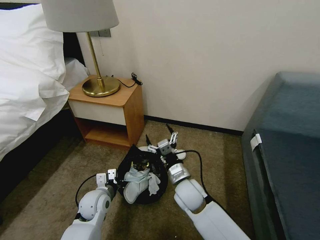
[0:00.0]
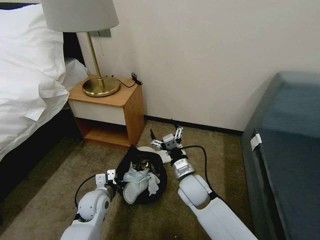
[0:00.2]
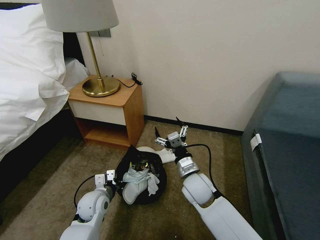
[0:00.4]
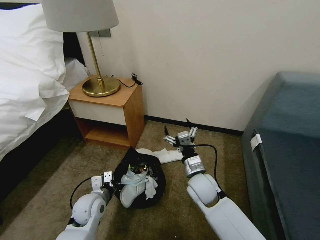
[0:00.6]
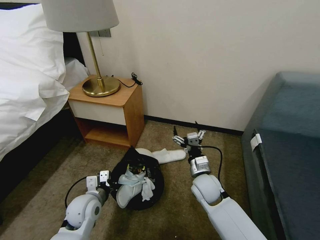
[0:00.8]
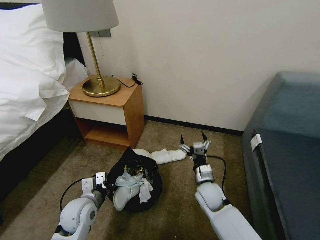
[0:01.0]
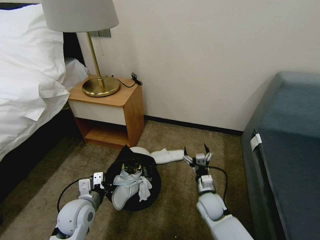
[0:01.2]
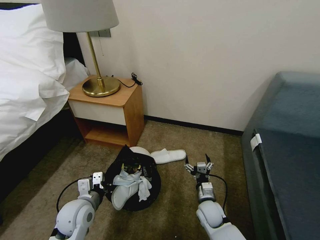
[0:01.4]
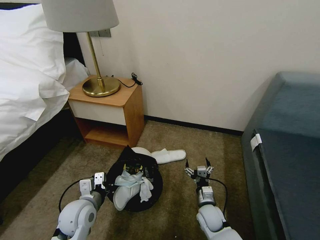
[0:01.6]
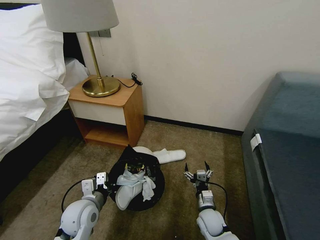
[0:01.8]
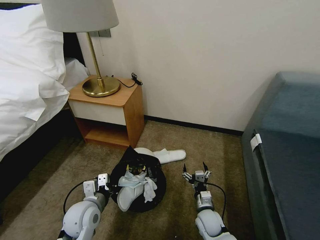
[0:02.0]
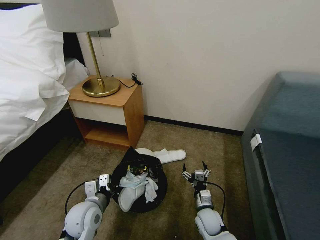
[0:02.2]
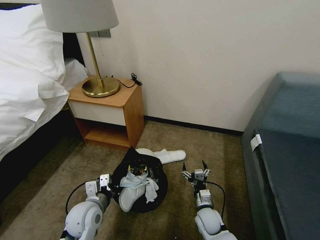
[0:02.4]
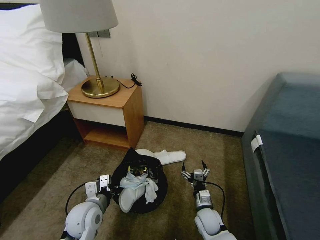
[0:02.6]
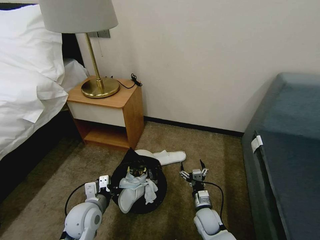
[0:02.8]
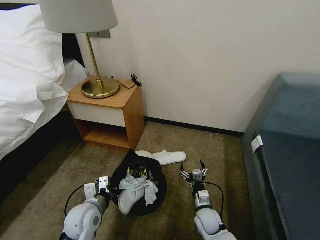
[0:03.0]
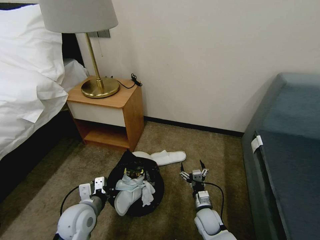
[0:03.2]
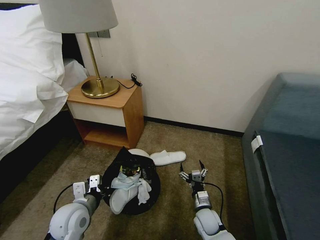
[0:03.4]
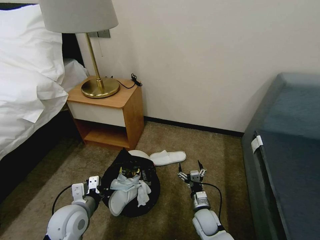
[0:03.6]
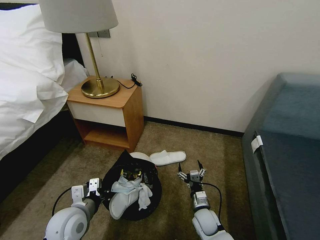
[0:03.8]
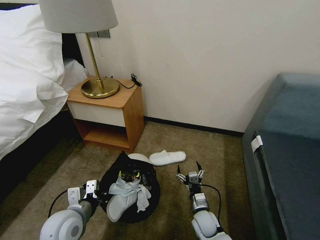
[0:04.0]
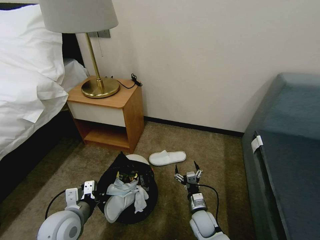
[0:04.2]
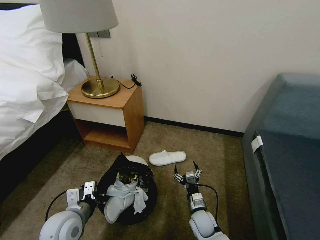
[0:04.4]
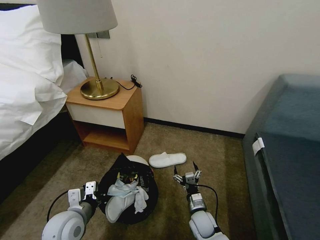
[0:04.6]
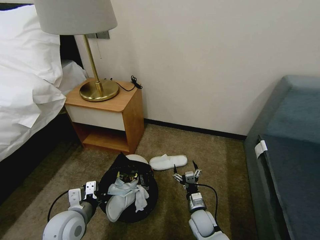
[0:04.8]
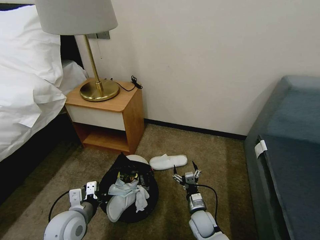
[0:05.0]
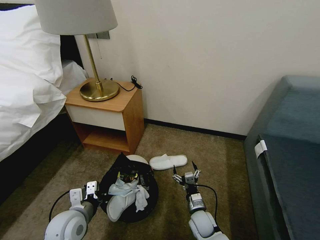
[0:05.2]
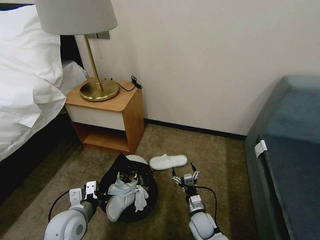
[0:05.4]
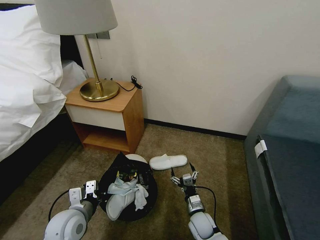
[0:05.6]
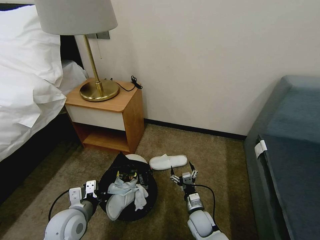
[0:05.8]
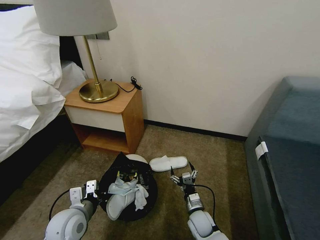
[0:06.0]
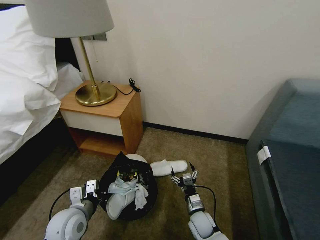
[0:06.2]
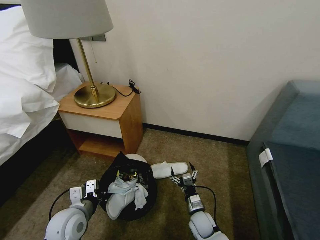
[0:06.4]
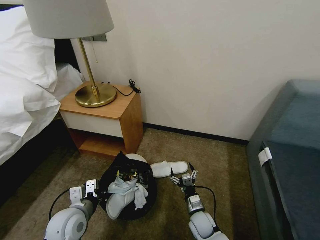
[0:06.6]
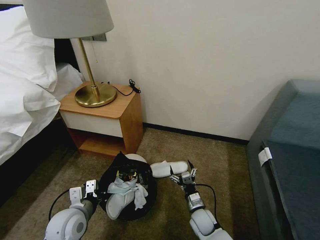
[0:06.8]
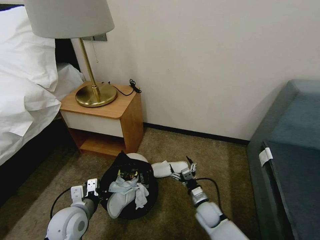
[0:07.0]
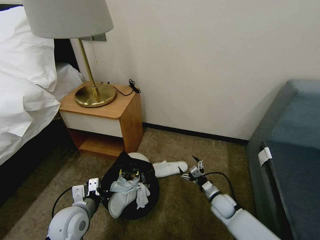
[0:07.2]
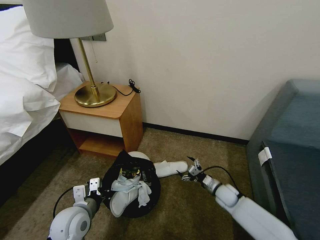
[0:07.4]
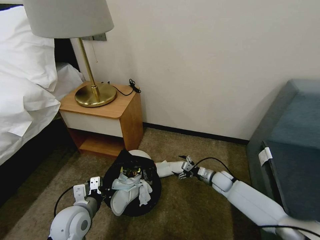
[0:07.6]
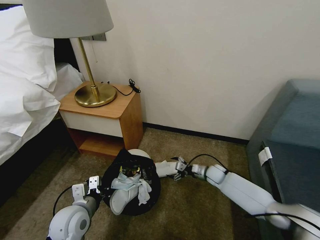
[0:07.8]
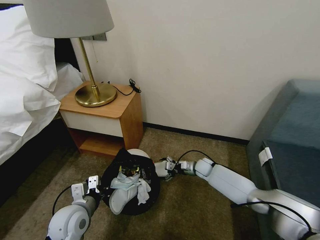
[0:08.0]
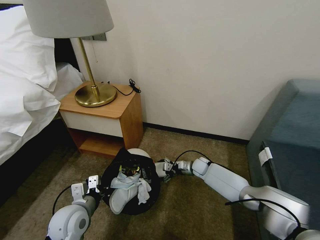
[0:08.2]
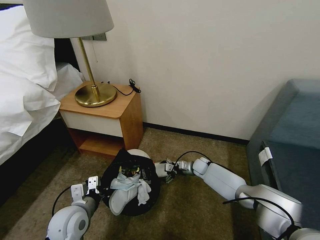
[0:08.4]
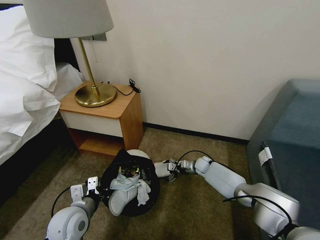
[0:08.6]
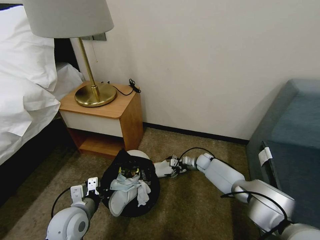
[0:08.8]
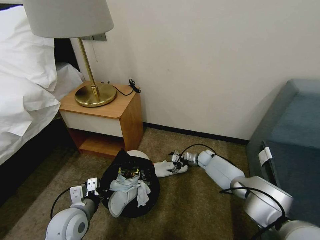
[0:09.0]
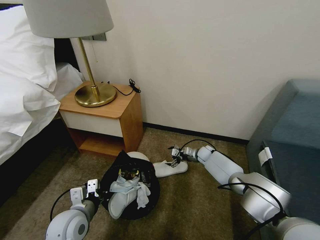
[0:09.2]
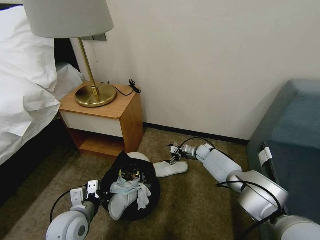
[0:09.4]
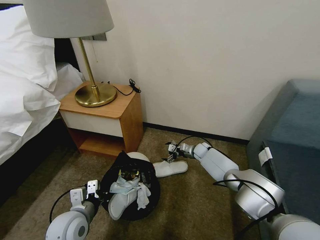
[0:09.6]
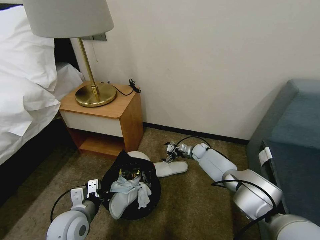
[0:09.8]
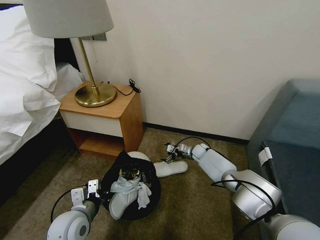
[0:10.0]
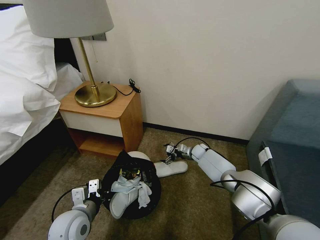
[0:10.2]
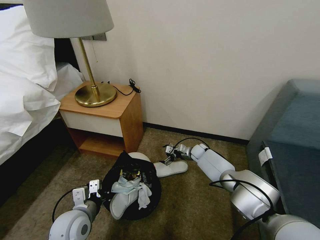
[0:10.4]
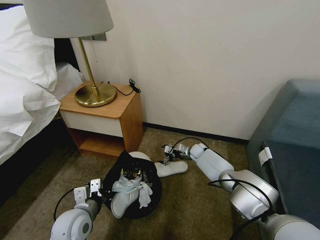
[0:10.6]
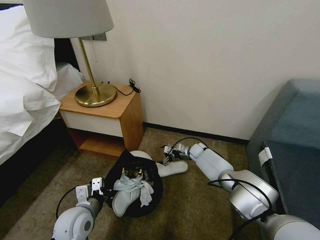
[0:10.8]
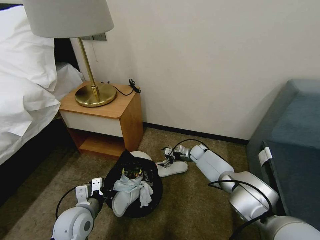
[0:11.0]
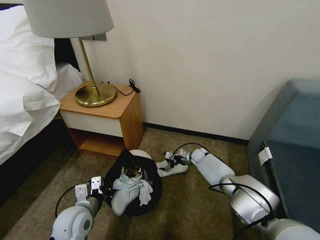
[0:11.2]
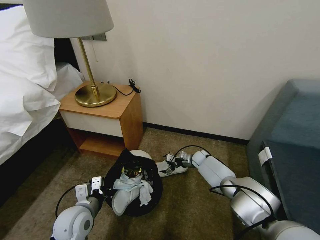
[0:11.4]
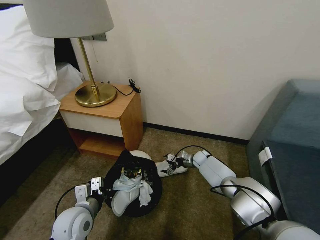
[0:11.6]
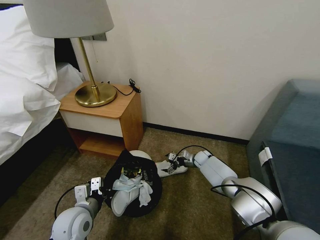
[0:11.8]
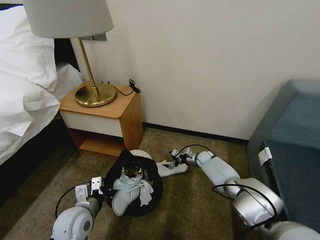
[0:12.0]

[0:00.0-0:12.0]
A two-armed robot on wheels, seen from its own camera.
Task of the whole recording: Pick up the trash bin, then pick up the garbage on the floor and place it into the trash bin.
0:00.0 to 0:01.6: The left gripper moves backward, some 5 cm, while the right gripper goes about 20 cm downward and to the right.
0:01.6 to 0:03.0: The grippers move only a little.
0:03.0 to 0:04.4: The left gripper shifts by about 5 cm.
0:04.4 to 0:06.0: The grippers make only small movements.
0:06.0 to 0:07.6: The right gripper is displaced forward and to the right by about 20 cm.
0:07.6 to 0:09.0: The right gripper is displaced forward by roughly 15 cm.
0:09.0 to 0:10.4: There are only small adjustments of the grippers.
0:10.4 to 0:12.0: The grippers stay close to where they were, moving slightly.

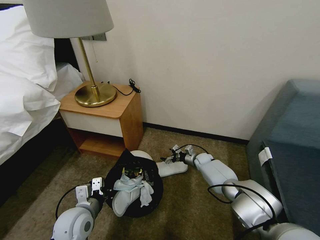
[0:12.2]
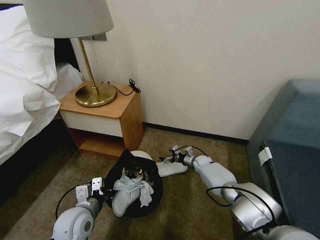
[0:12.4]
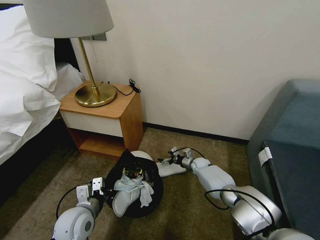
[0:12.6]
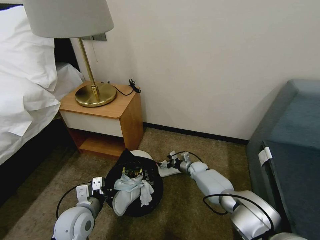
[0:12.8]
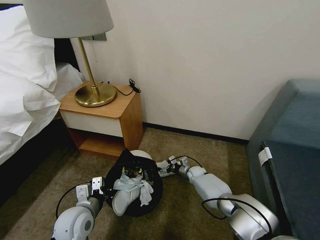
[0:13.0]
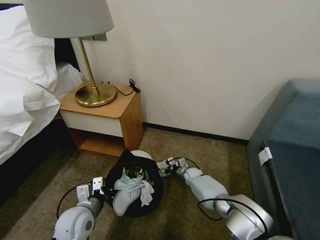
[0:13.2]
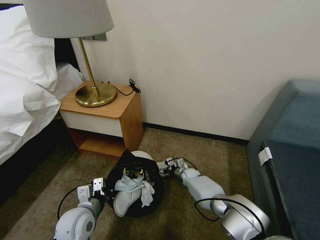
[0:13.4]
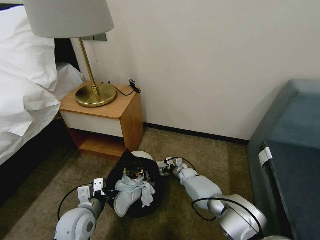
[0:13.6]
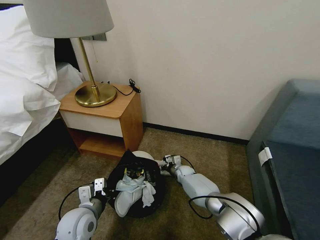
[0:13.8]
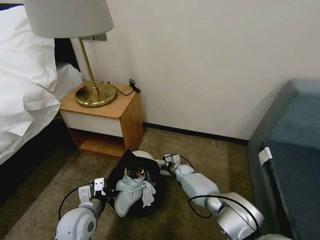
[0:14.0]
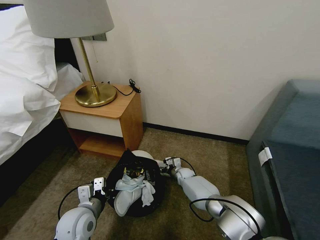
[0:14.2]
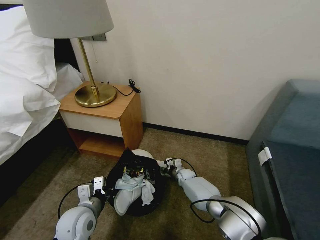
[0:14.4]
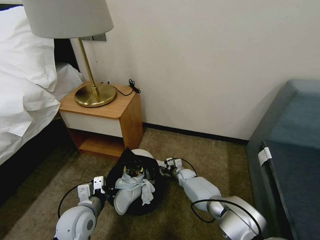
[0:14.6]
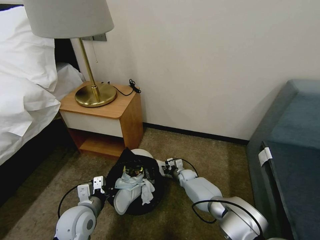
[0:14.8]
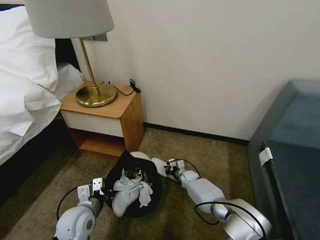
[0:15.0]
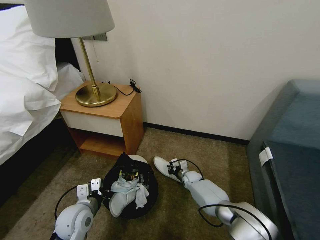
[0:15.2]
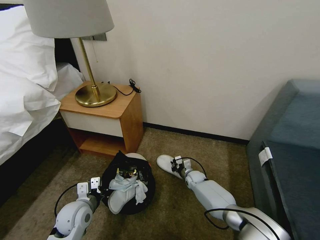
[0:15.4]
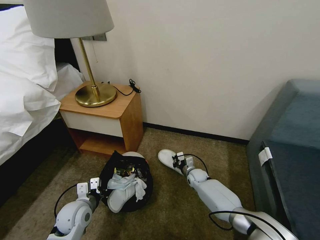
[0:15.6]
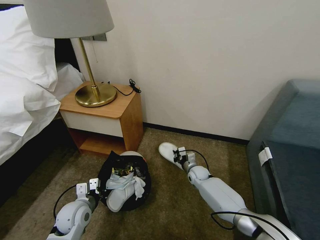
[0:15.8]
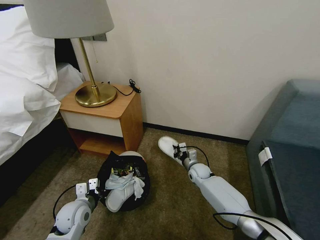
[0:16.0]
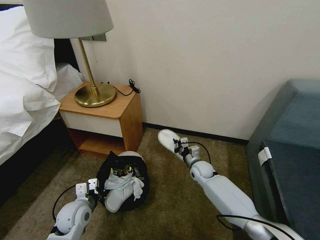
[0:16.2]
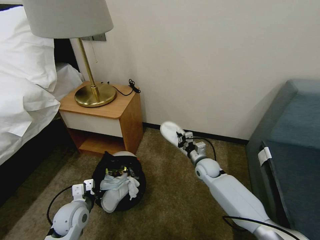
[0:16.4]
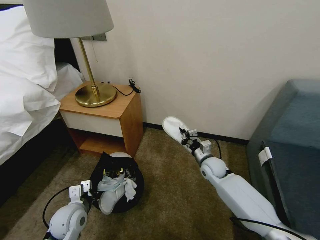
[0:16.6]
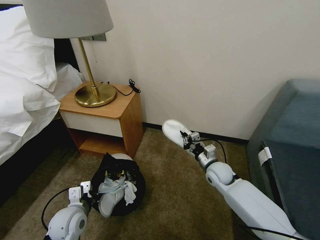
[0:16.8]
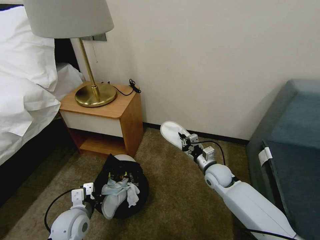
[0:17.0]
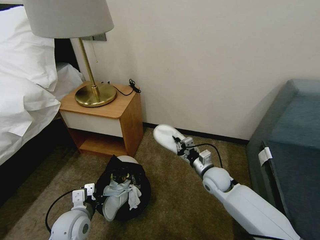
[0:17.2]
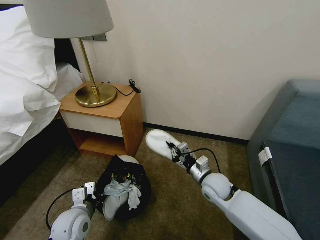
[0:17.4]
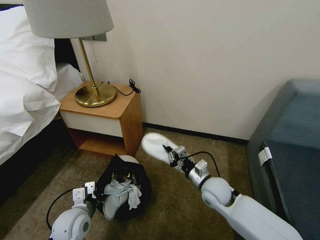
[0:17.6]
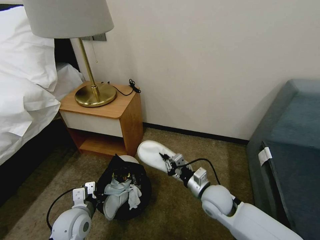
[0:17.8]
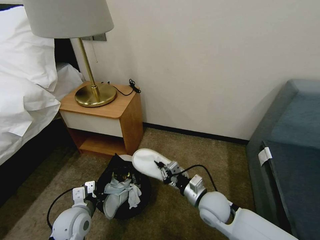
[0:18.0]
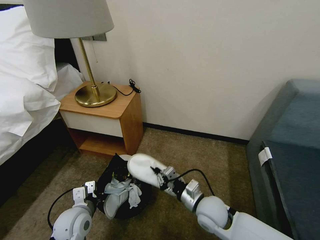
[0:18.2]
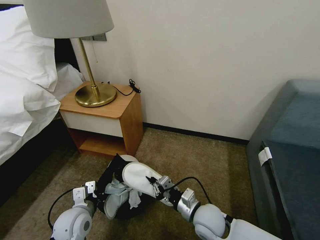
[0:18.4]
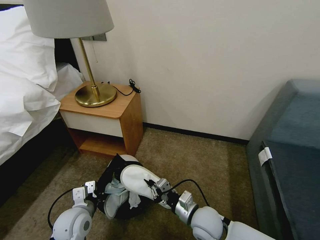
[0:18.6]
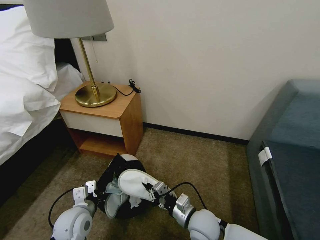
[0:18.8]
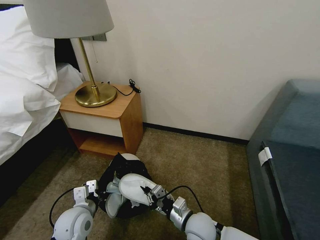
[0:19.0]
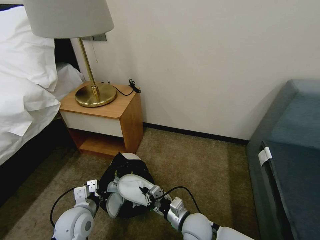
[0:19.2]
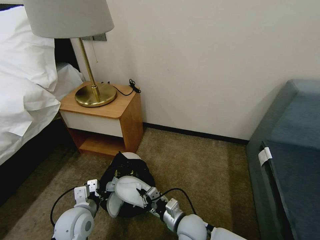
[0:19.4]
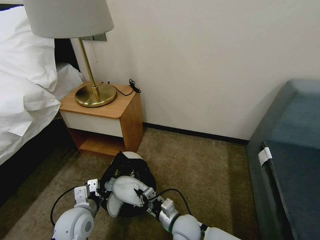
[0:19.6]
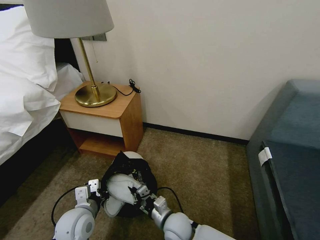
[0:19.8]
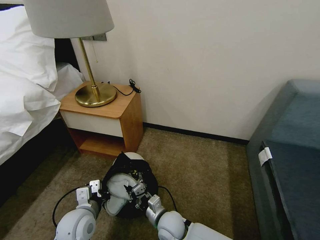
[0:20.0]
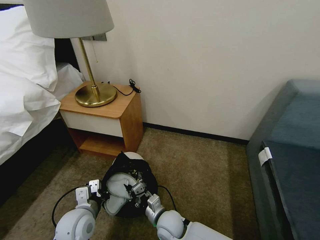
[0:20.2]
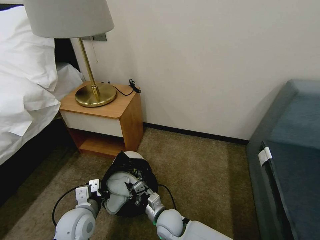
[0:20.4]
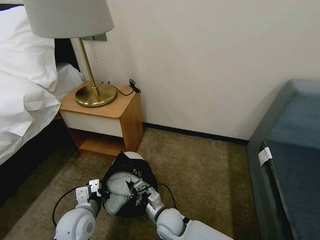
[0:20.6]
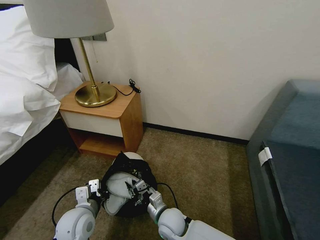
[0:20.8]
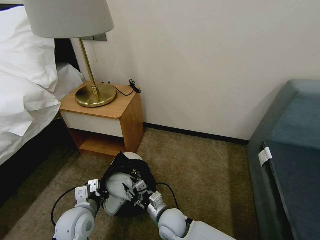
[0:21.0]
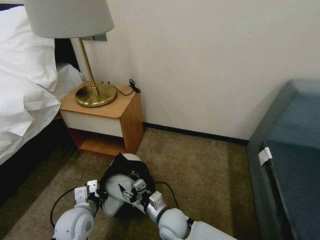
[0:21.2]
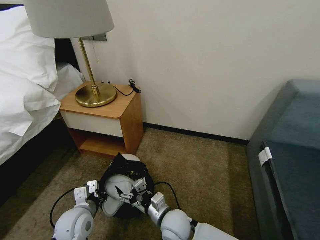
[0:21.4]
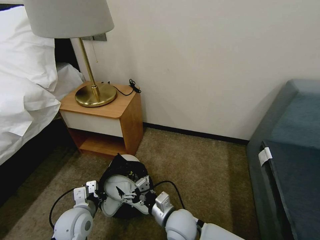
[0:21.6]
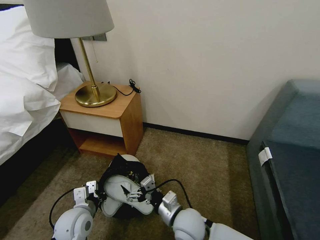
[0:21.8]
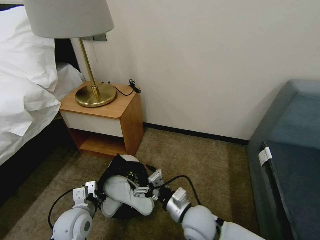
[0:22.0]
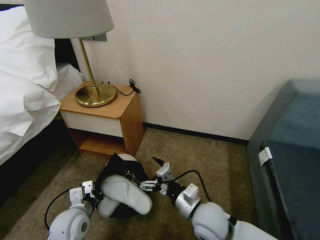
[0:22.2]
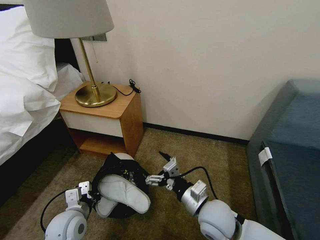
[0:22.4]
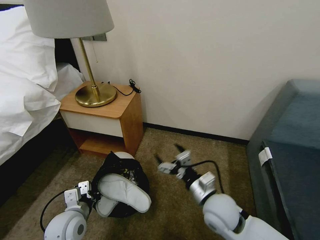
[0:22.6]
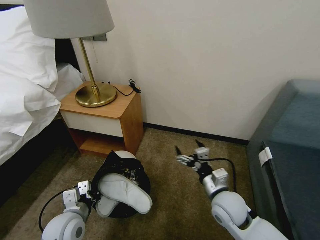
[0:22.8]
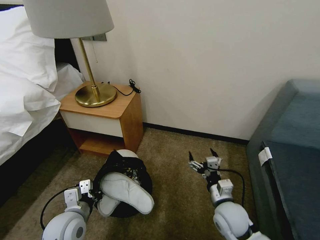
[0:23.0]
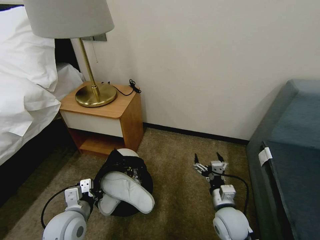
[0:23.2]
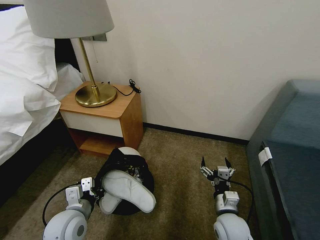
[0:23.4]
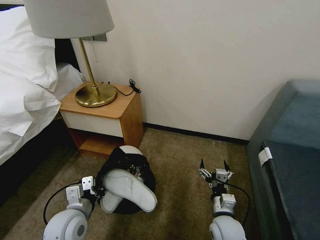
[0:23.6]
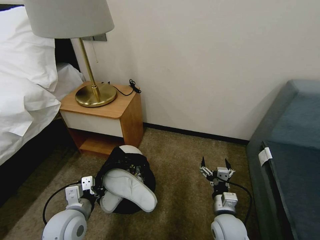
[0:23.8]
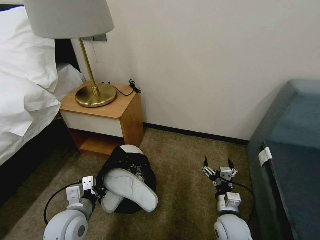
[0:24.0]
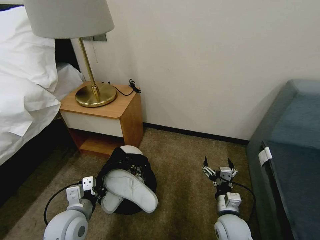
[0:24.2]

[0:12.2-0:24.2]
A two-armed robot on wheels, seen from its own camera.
Task of the whole recording: Pick up the trash bin, then pick up the garbage on the floor and place it into the trash bin.
0:12.2 to 0:13.8: The right gripper goes about 10 cm to the left and backward.
0:13.8 to 0:15.2: The right gripper closes up.
0:15.2 to 0:16.6: The right gripper travels upward by some 20 cm.
0:16.6 to 0:18.2: The right gripper heads backward, covering about 15 cm.
0:18.2 to 0:19.8: The right gripper shifts some 15 cm to the left and downward.
0:19.8 to 0:21.2: The right gripper opens its fingers.
0:21.2 to 0:22.6: The right gripper is displaced to the right and upward by roughly 15 cm.
0:22.6 to 0:24.2: The right gripper heads downward and to the right, covering roughly 10 cm.
